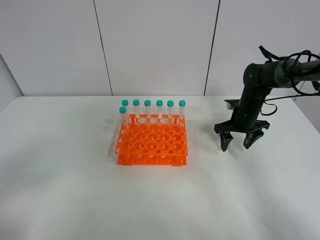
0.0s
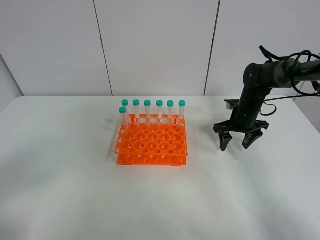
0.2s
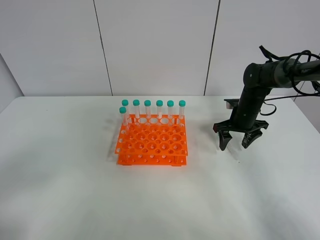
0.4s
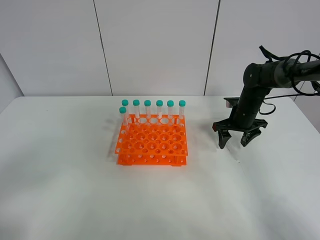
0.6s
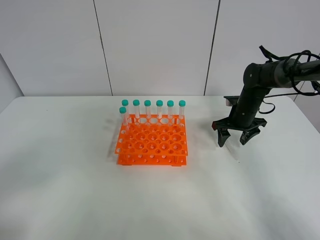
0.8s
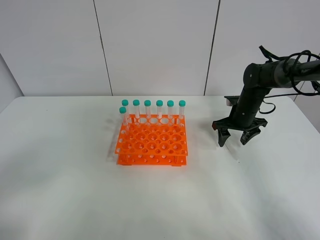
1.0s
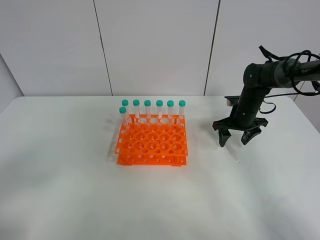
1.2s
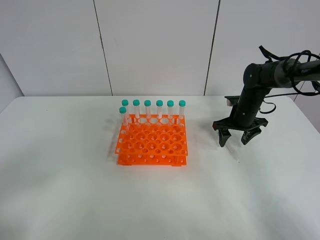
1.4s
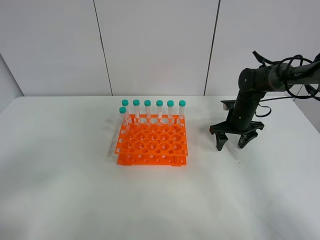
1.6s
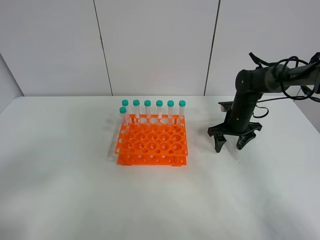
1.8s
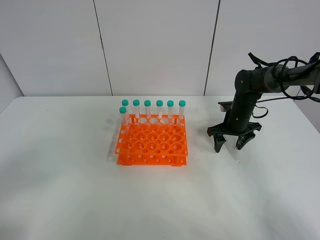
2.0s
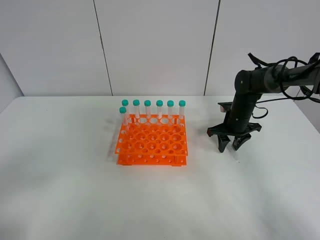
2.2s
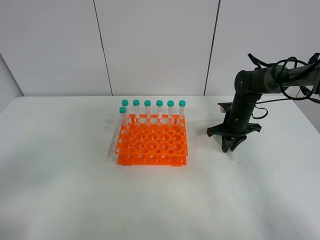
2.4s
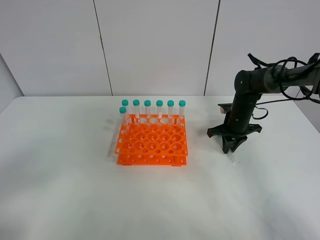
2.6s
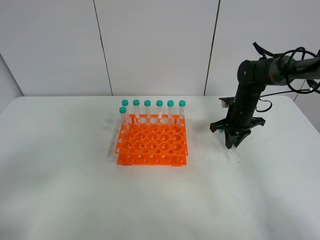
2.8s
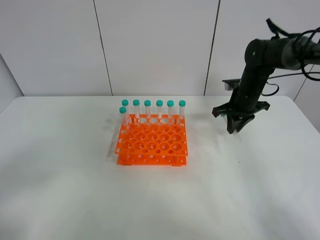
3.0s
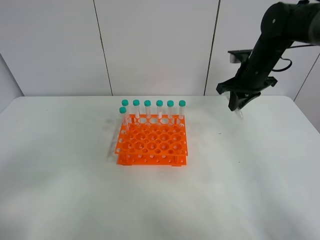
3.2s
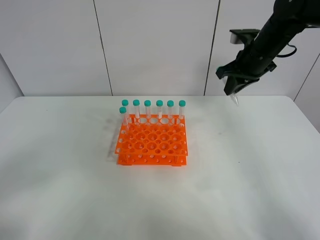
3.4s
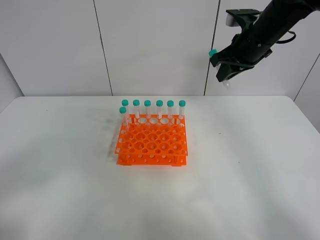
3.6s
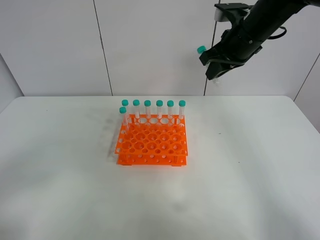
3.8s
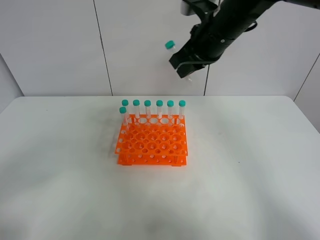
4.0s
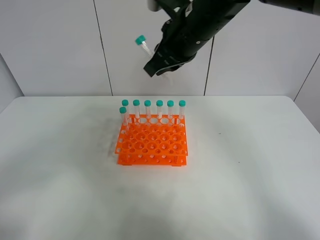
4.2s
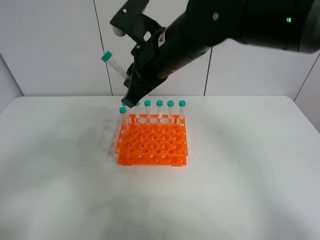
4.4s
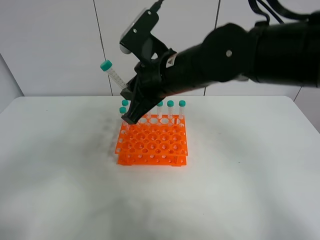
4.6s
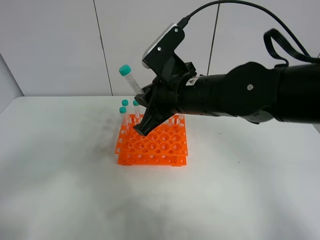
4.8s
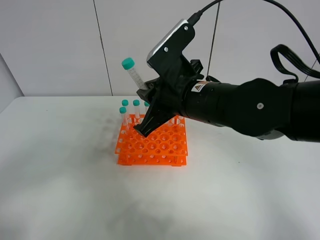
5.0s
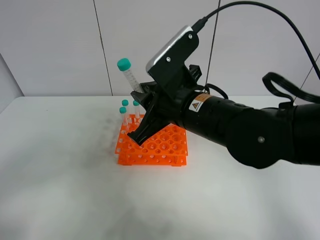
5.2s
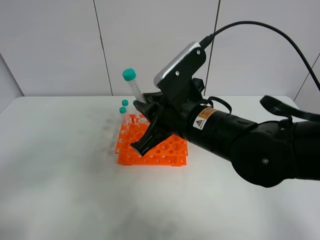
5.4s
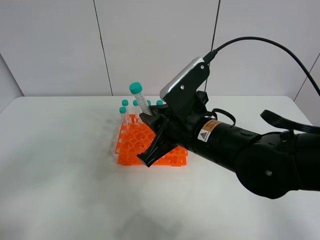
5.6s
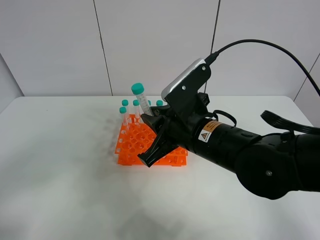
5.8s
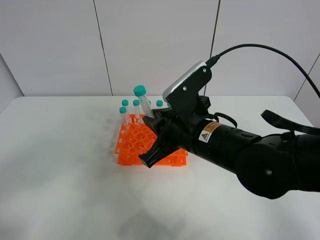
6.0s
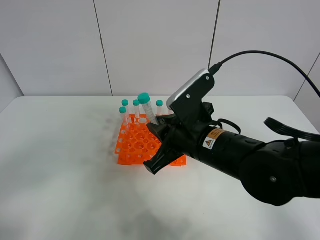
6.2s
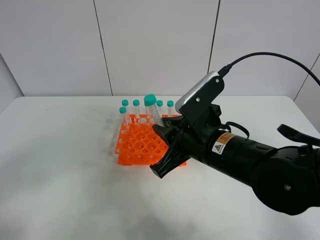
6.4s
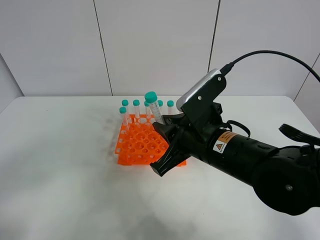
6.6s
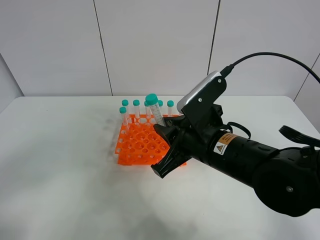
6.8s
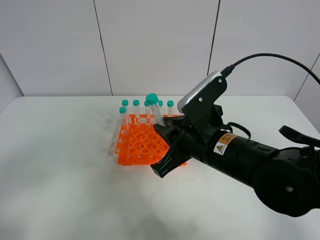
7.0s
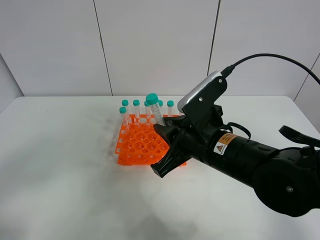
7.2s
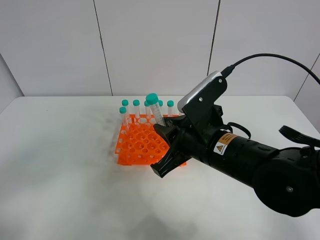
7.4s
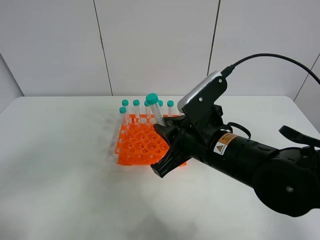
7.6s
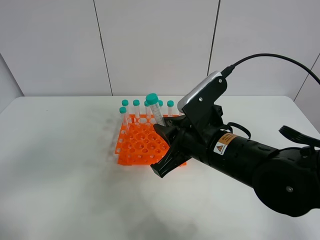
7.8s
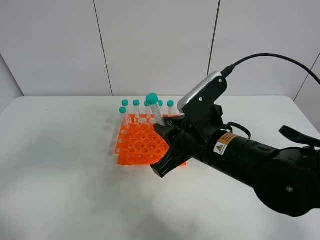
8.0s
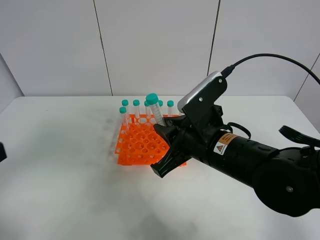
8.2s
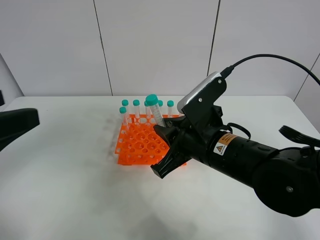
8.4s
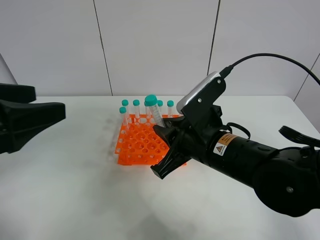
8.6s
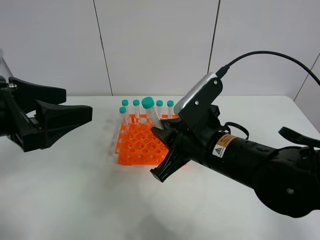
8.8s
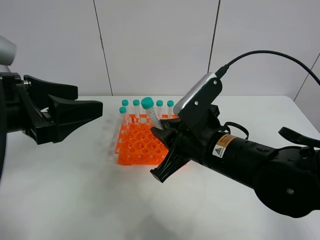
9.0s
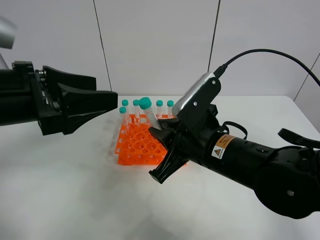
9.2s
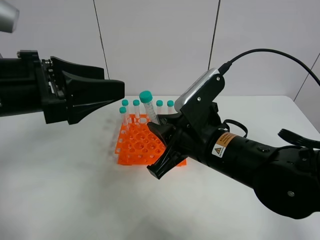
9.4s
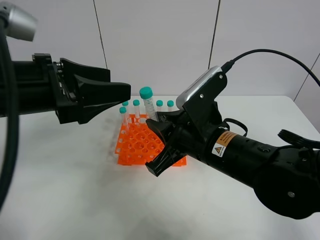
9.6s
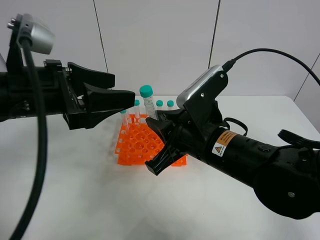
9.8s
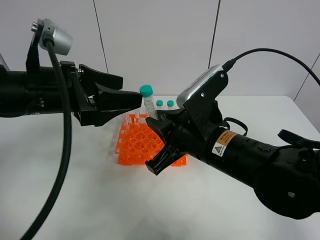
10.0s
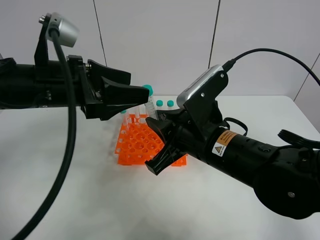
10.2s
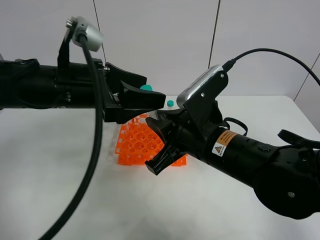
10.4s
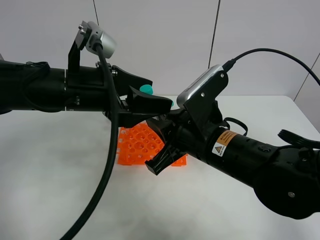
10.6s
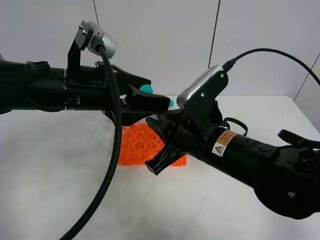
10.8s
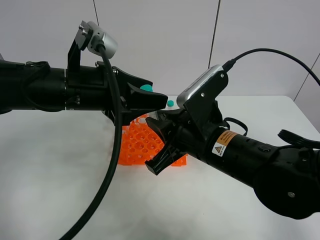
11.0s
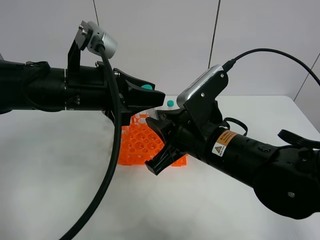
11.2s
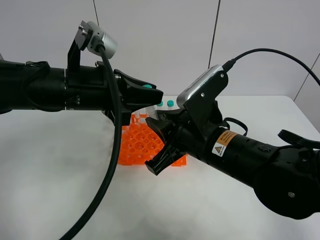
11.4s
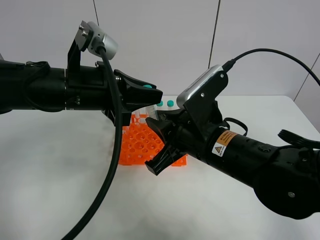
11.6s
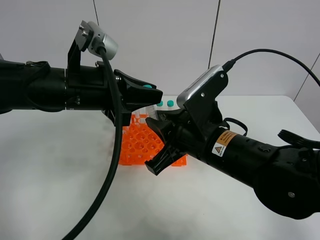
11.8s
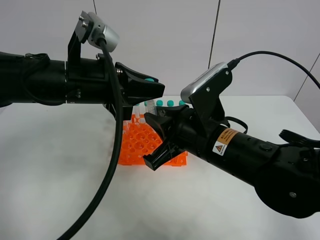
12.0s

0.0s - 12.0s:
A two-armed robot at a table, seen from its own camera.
Task of the whole recording: Put the test tube on the table back onto the test tube rack.
Step, 0.0s - 2.6s: Pick up the test tube with the right gripper.
0.0s - 1.6s: The grippers stay close to where they were, moving slightly.
1.6s - 3.0s: The right gripper travels upward by some 10 cm, and closes.
3.0s - 4.4s: The right gripper is displaced to the left, upward and backward by roughly 30 cm.
4.4s - 6.0s: The right gripper travels downward, backward and to the right by about 15 cm.
6.0s - 7.6s: There are only small adjustments of the grippers.
7.6s - 9.0s: The left gripper heads forward and to the right, covering approximately 20 cm.
9.0s - 10.4s: The left gripper travels to the right and forward by approximately 10 cm.
10.4s - 12.0s: The left gripper closes.

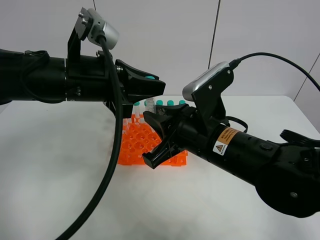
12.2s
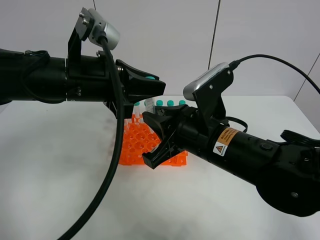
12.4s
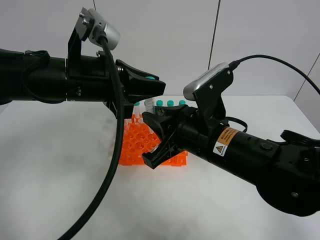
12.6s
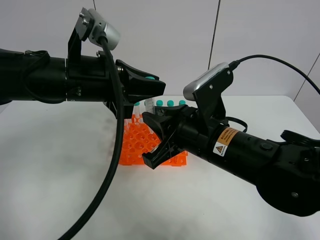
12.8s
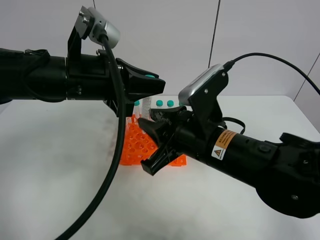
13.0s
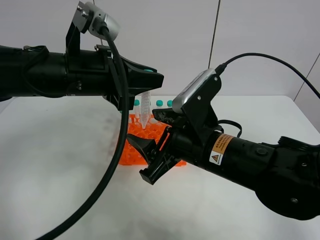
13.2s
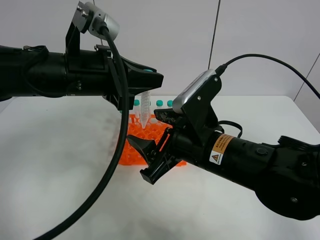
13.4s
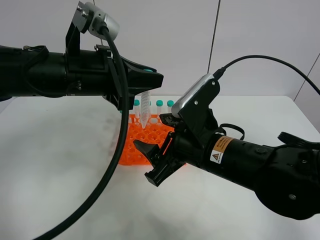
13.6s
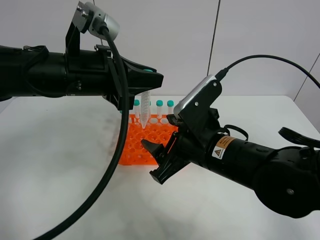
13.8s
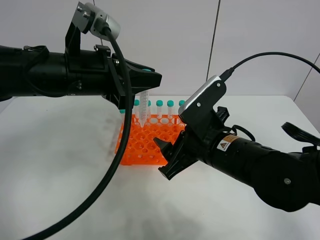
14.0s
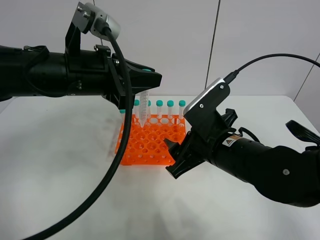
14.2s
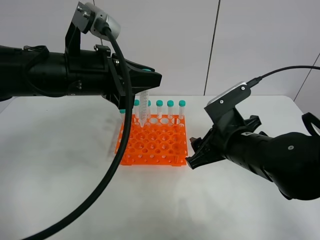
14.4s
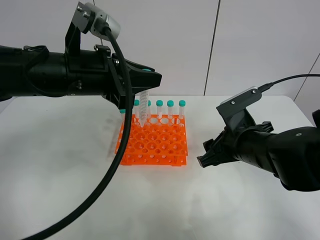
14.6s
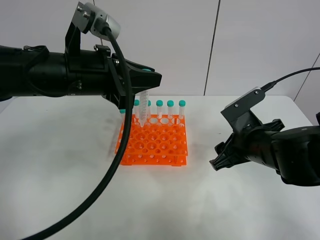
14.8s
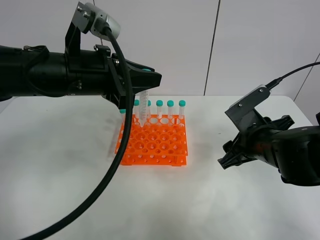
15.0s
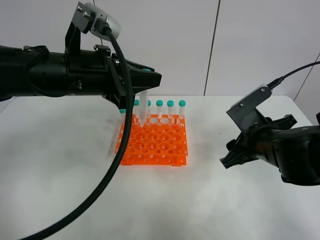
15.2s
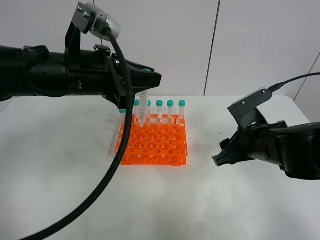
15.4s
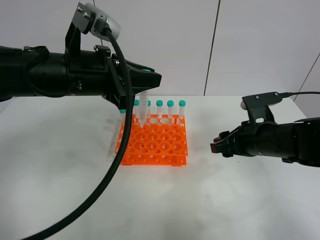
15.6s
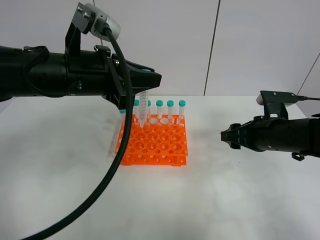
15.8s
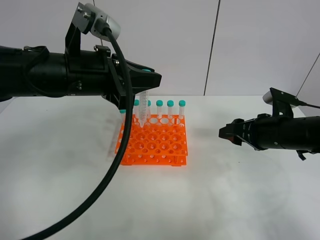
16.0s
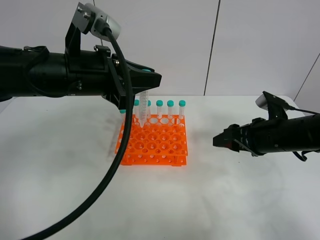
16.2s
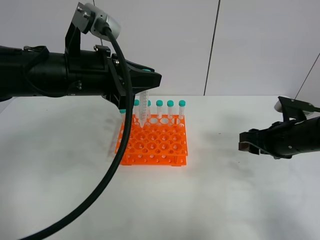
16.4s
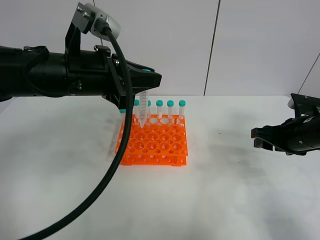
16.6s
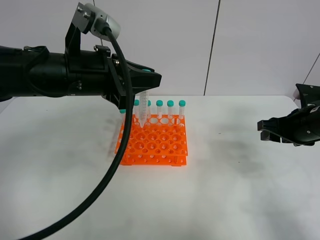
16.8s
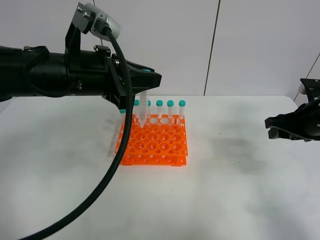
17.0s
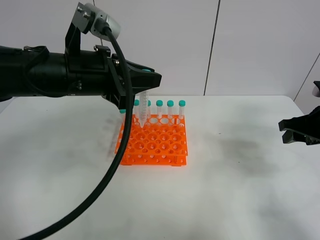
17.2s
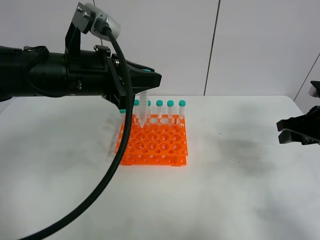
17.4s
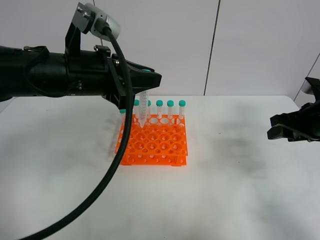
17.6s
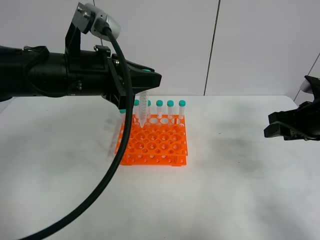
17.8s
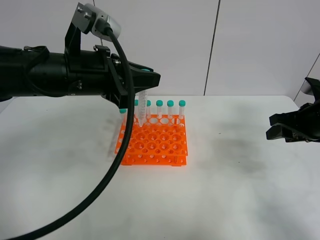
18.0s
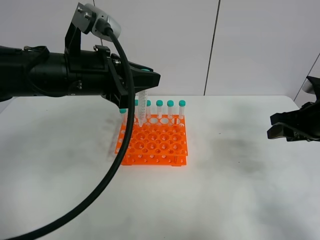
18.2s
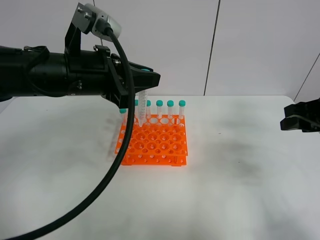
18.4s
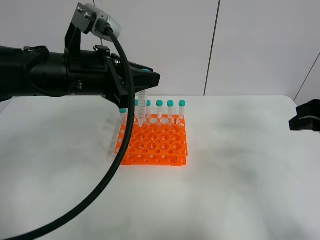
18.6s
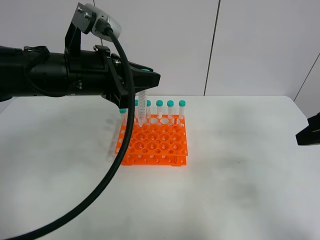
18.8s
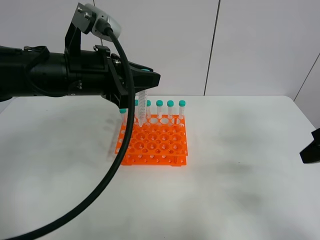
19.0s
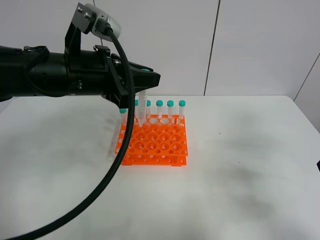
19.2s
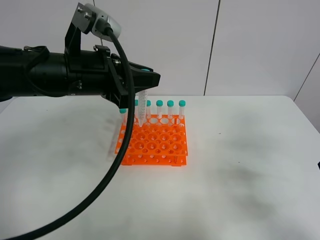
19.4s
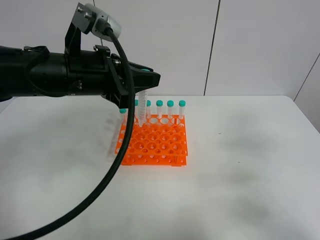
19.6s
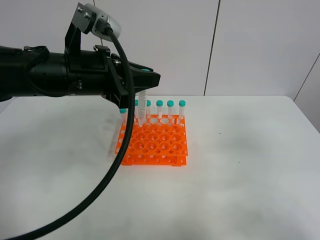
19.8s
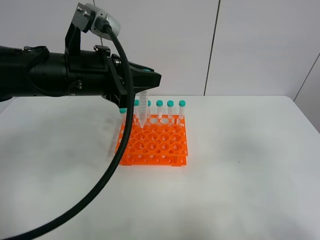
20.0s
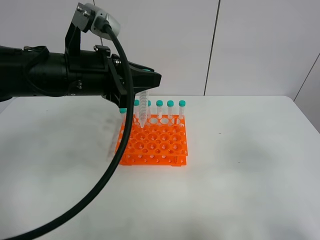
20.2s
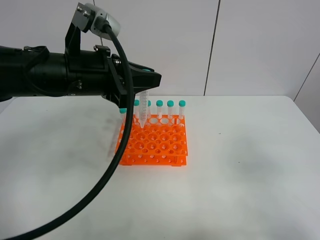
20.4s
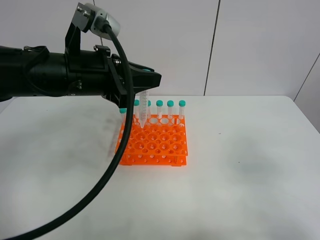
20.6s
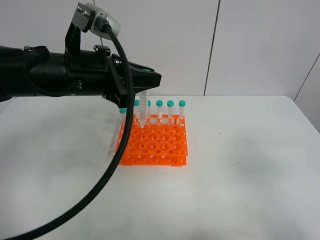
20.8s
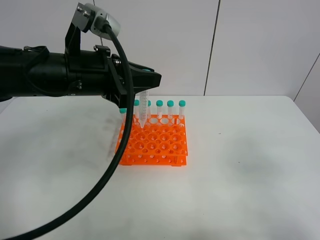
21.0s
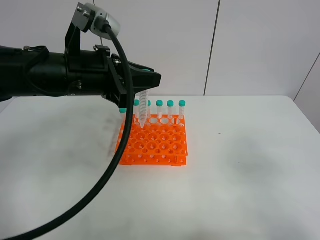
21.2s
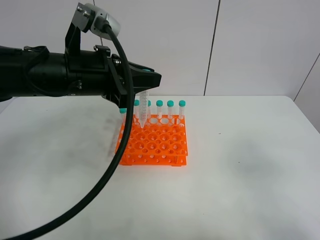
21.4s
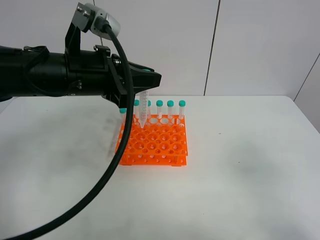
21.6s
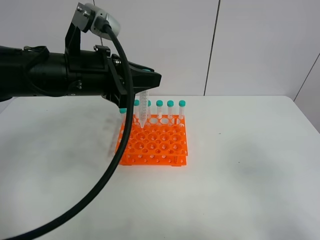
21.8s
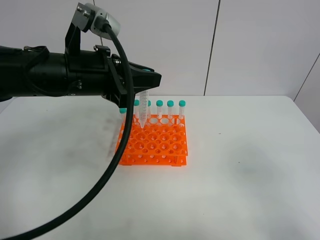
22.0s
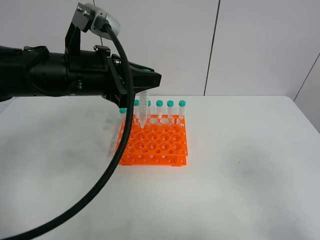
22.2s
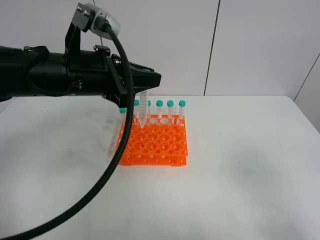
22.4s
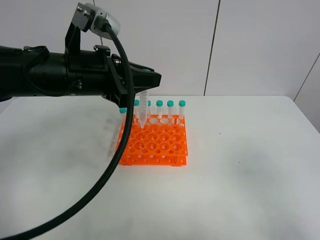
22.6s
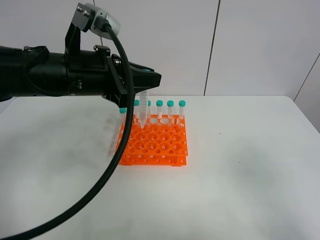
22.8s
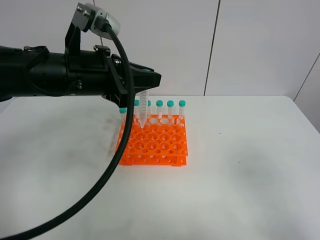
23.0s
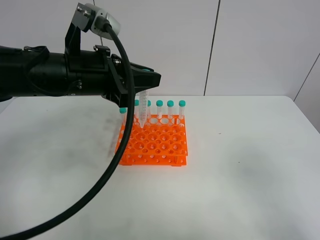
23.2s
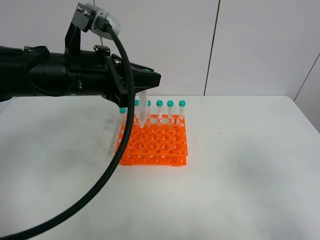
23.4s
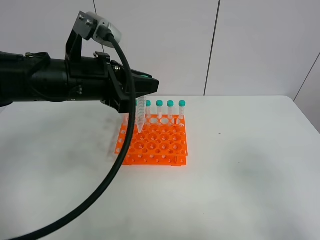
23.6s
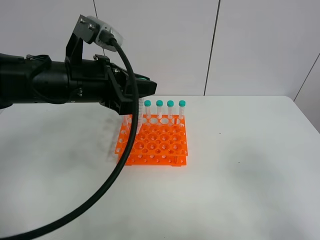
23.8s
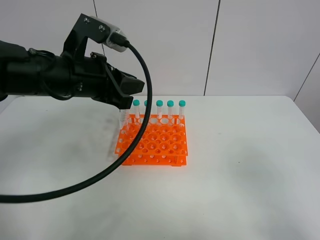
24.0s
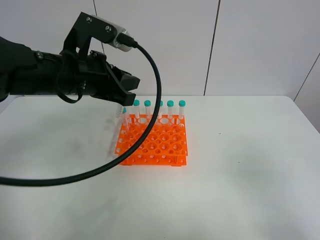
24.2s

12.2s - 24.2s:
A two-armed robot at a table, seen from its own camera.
Task of the whole recording: Put the test tube on the table back onto the test tube rack.
12.2s - 13.8s: The right gripper opens its fingers.
13.8s - 15.2s: The right gripper goes approximately 10 cm to the right.
15.2s - 16.6s: The right gripper travels to the right by approximately 10 cm.
16.6s - 18.2s: The right gripper changes place by approximately 5 cm.
18.2s - 19.8s: The right gripper travels backward and upward by roughly 20 cm.
19.8s - 21.2s: The right gripper shifts roughly 10 cm backward.
